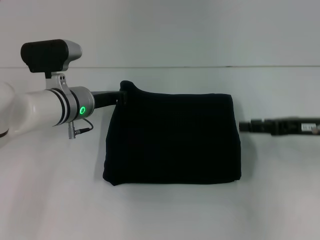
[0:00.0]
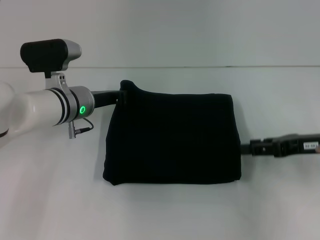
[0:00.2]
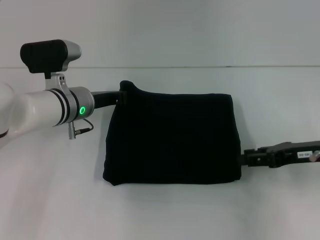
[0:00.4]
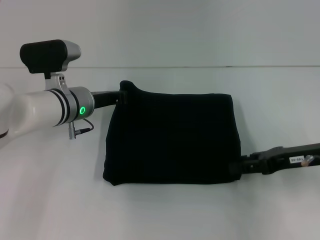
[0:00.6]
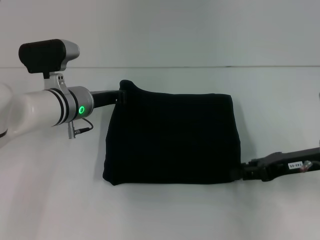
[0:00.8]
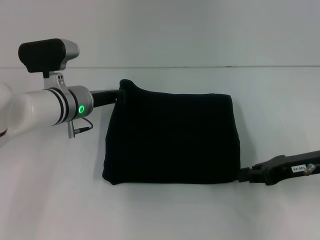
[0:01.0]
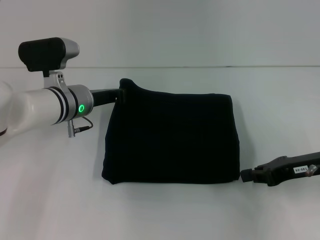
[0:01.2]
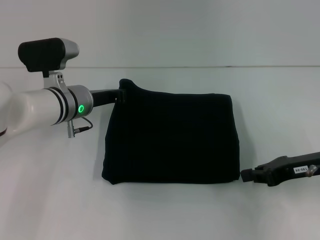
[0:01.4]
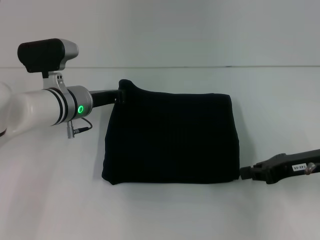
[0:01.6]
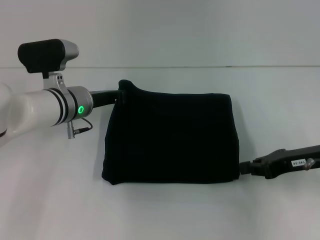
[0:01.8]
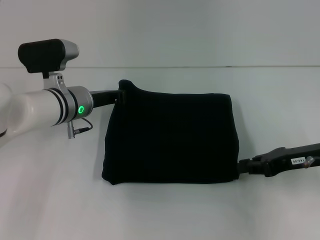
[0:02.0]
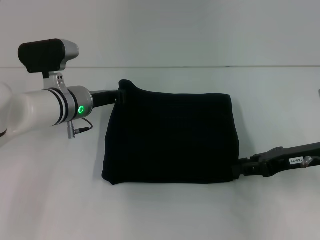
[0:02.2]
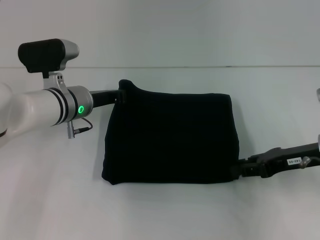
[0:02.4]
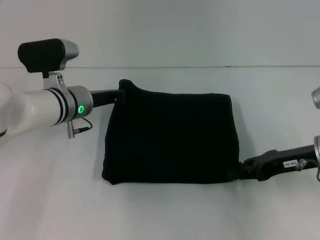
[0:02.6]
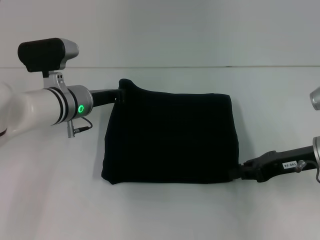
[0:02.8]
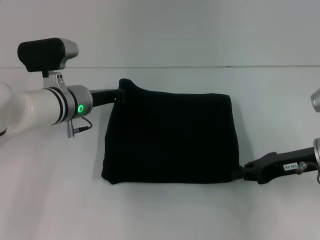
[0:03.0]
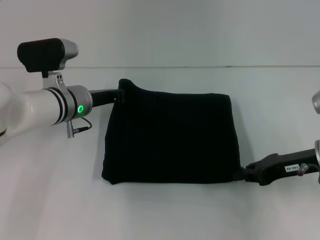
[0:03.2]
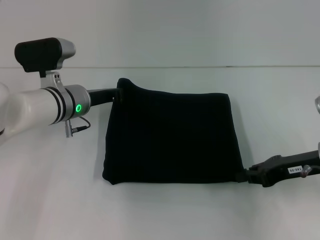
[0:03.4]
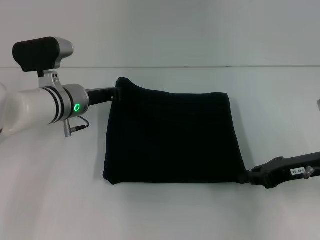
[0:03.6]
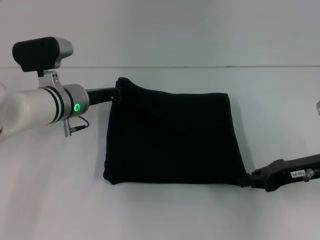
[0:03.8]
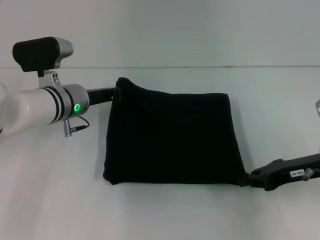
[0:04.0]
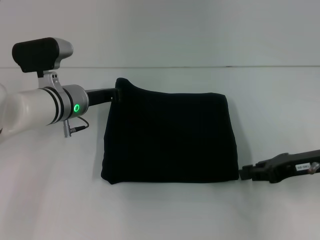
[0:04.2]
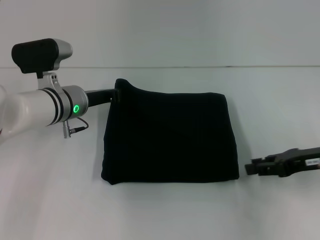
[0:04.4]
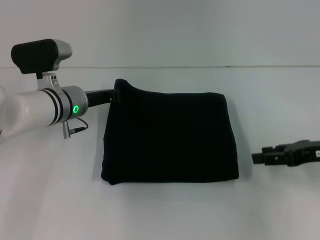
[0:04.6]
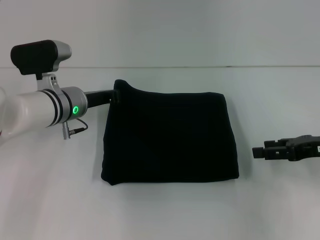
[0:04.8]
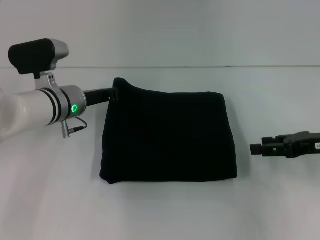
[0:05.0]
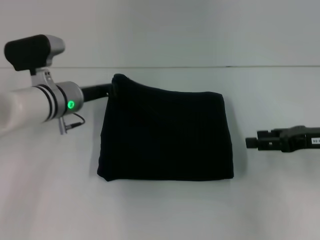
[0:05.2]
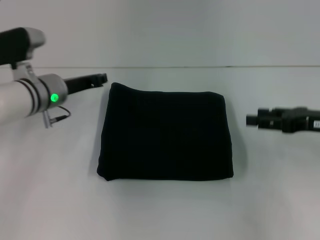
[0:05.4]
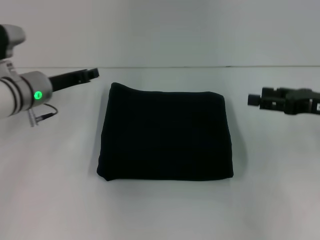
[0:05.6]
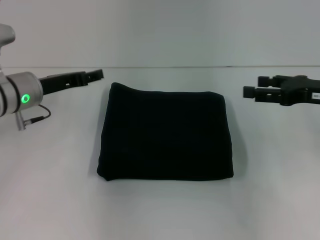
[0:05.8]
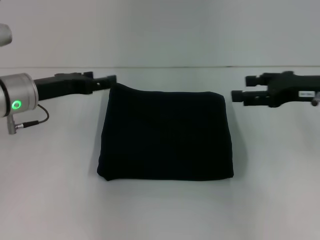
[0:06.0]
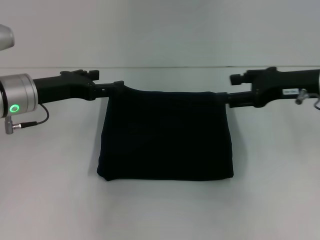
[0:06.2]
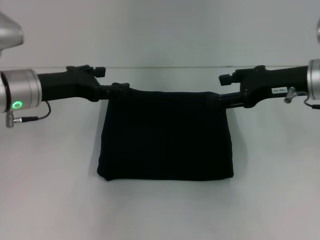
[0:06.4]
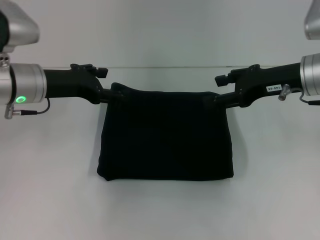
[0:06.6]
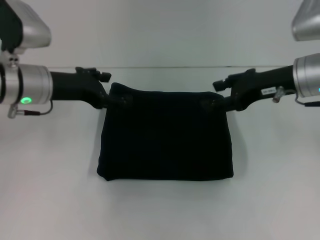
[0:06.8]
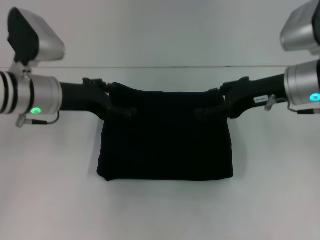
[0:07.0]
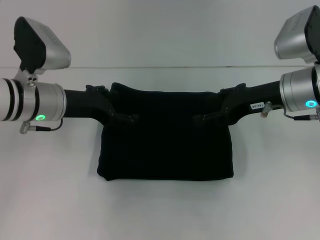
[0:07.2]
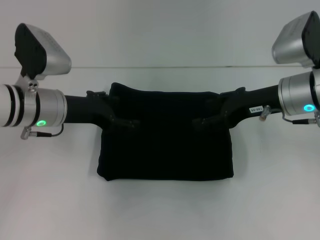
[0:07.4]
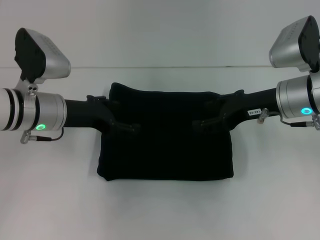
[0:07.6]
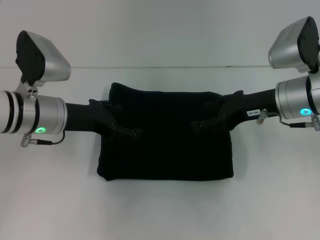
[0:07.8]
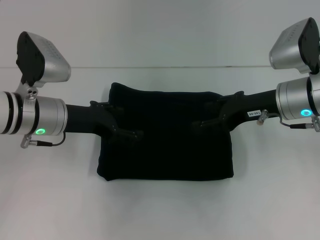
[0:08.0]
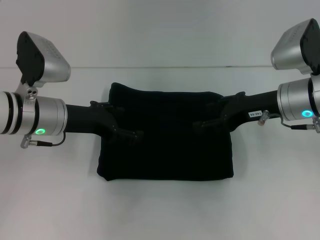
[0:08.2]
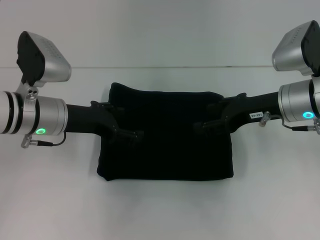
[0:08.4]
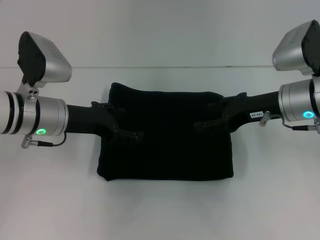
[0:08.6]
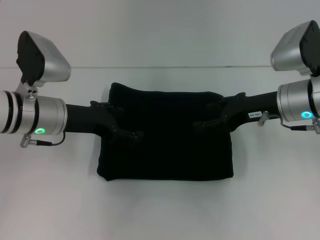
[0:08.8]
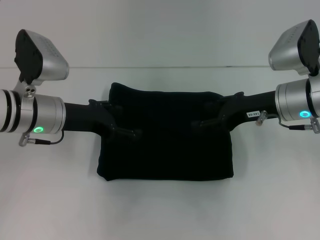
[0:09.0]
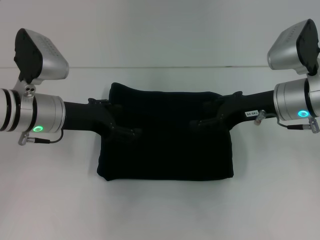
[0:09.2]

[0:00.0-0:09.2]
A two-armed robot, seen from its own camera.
0:00.0 to 0:01.6: The right gripper closes.
0:01.6 to 0:03.0: The grippers make only small movements.
0:03.0 to 0:04.6: The right gripper moves approximately 5 cm.
0:04.6 to 0:06.2: The left gripper travels to the left and upward by approximately 10 cm, and opens; the right gripper moves upward, to the left and forward, some 10 cm, and opens.
0:06.2 to 0:07.6: The right gripper changes place by roughly 5 cm.
0:07.6 to 0:09.2: Neither gripper changes place.

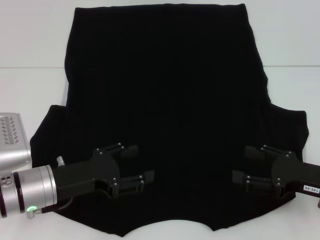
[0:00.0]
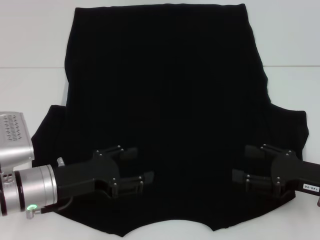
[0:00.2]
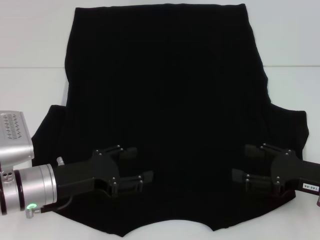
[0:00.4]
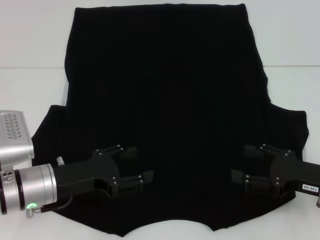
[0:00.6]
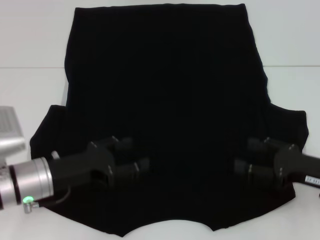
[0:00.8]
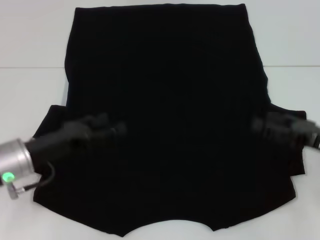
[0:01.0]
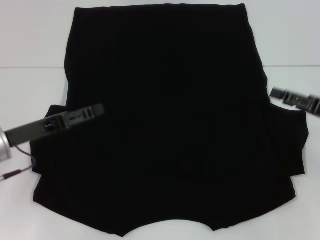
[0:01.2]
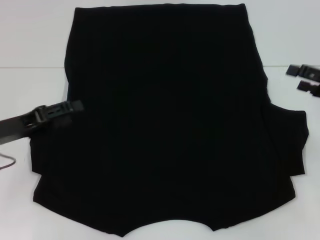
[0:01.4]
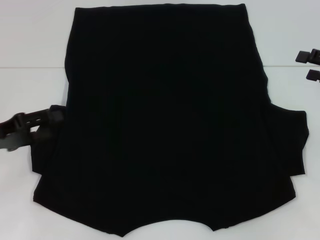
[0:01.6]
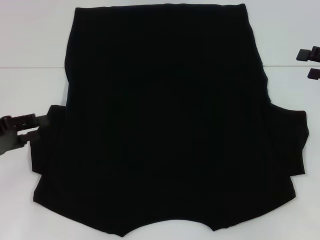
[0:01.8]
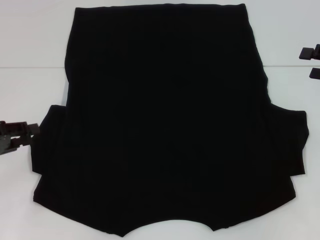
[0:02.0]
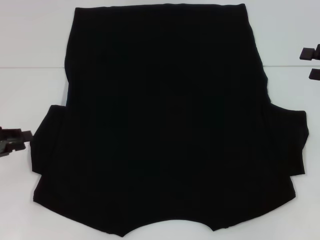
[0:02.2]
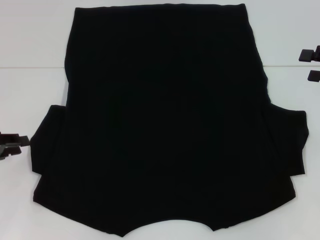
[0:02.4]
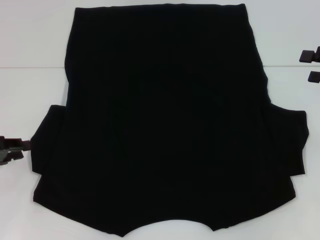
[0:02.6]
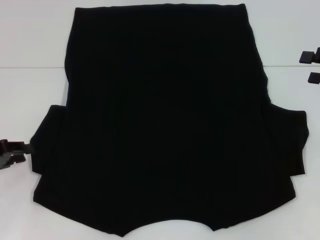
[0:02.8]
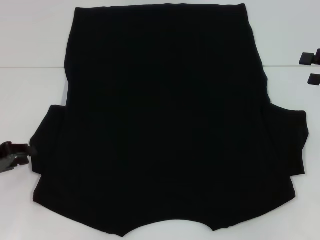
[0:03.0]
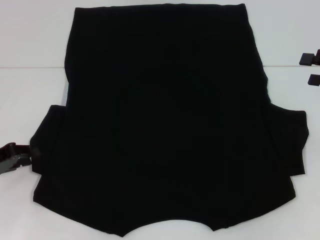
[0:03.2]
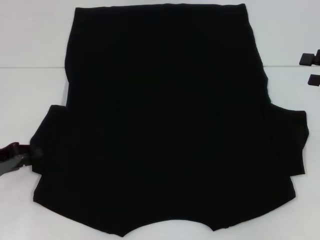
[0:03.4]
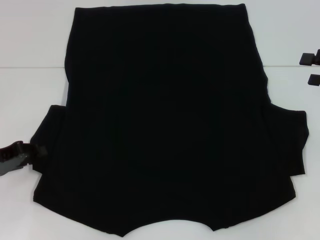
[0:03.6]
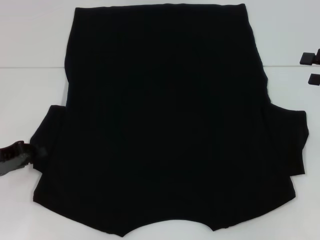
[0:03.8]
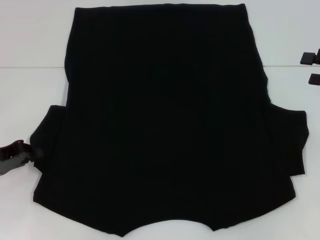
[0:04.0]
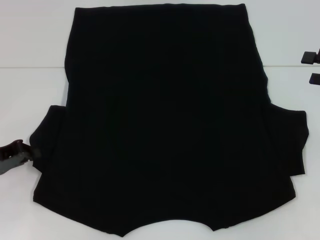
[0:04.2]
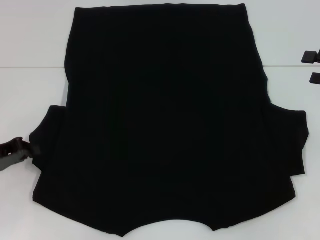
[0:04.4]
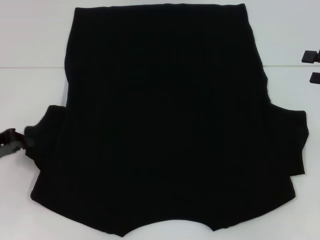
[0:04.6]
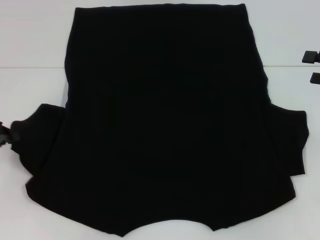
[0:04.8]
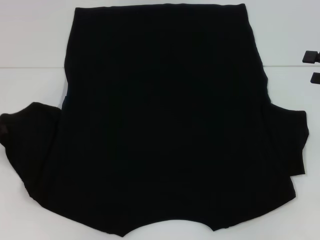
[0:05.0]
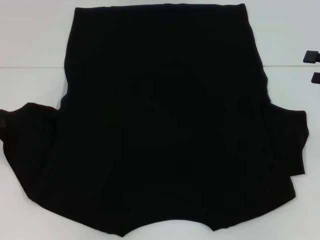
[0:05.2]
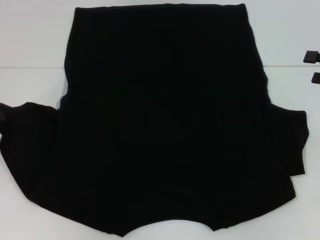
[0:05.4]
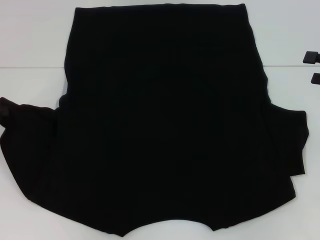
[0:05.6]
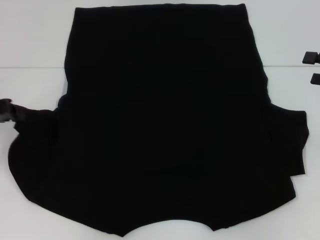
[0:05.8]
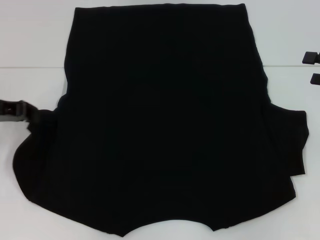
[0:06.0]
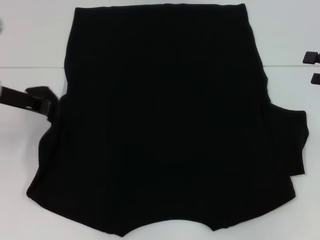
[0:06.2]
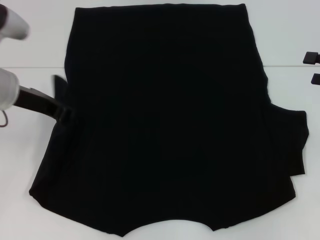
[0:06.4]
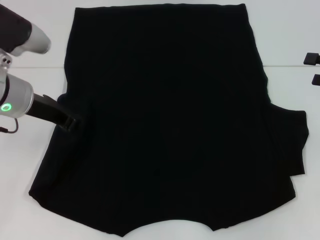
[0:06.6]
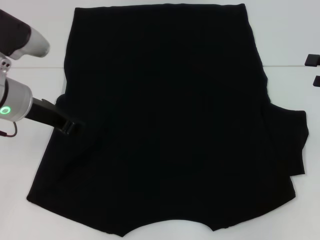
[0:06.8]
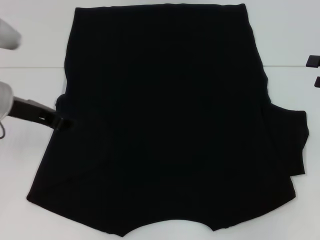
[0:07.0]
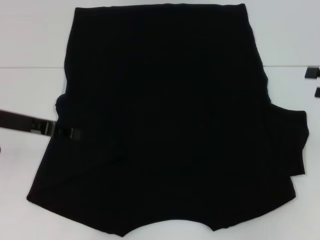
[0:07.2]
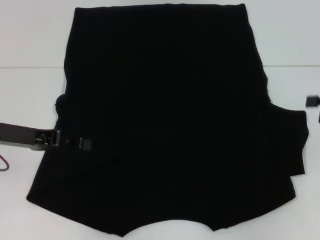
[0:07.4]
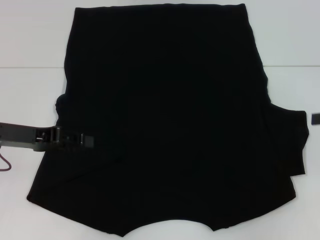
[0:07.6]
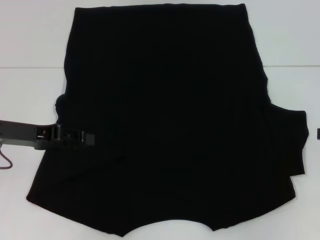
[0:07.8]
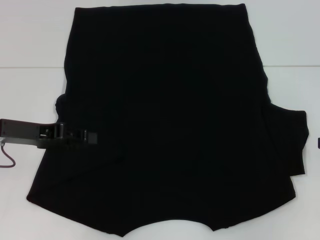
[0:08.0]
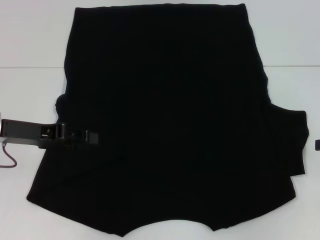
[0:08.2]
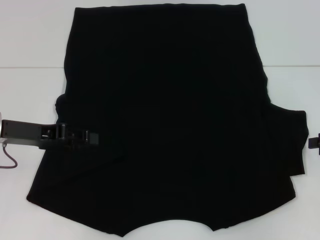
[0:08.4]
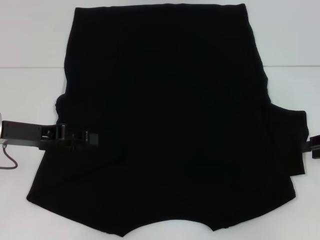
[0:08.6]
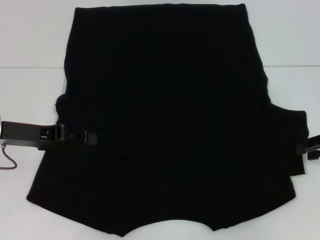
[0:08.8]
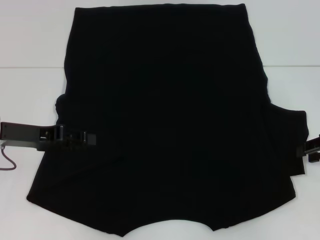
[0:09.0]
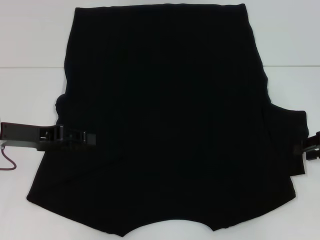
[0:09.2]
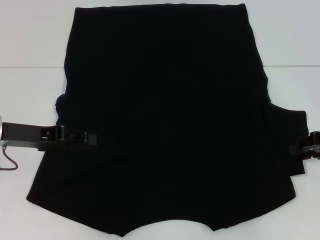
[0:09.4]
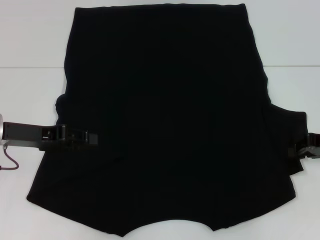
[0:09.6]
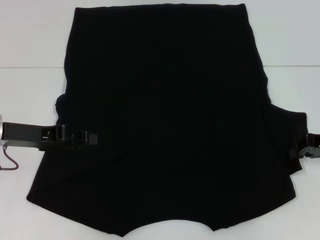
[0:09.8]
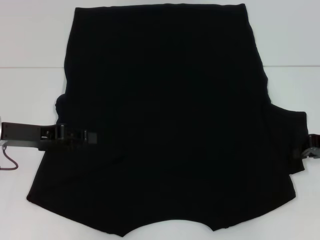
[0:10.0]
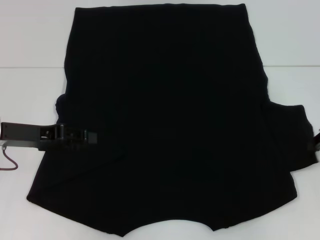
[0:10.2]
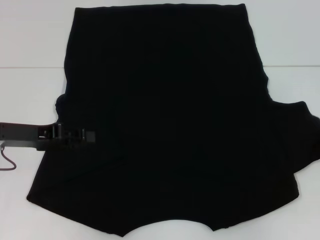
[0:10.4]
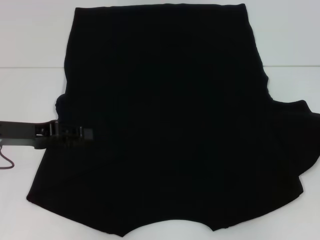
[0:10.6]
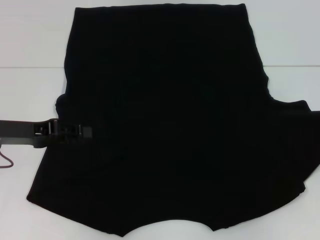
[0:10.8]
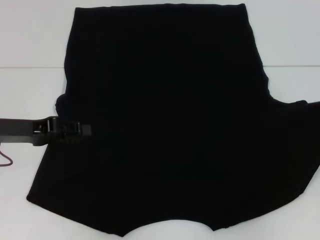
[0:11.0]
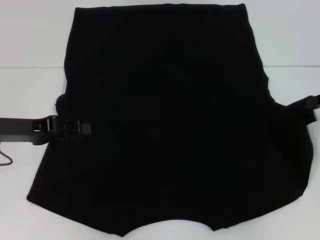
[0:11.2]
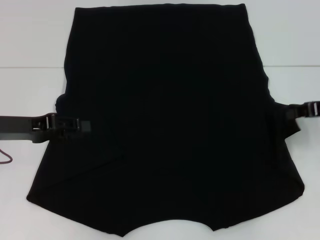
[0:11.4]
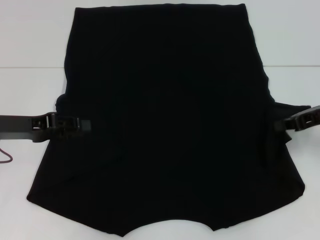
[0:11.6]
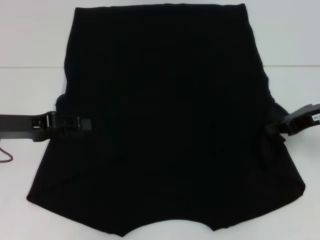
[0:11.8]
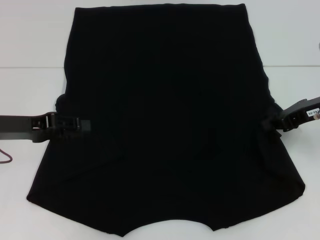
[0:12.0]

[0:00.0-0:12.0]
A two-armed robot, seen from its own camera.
Step, 0:00.0 to 0:07.2: Fold the bottom left sleeve with your left hand.
0:00.0 to 0:01.6: The left gripper goes some 15 cm to the left and upward; the right gripper shifts about 15 cm forward, upward and to the right.
0:01.6 to 0:03.0: The left gripper closes.
0:03.0 to 0:04.4: The left gripper closes its fingers.
0:04.4 to 0:06.0: The left gripper travels upward and forward by about 10 cm.
0:06.0 to 0:07.6: The left gripper moves about 10 cm to the right and comes back.
0:07.6 to 0:09.0: The right gripper shifts by about 5 cm, and closes.
0:09.0 to 0:10.4: The right gripper closes up.
0:10.4 to 0:12.0: The right gripper travels to the left by roughly 10 cm.

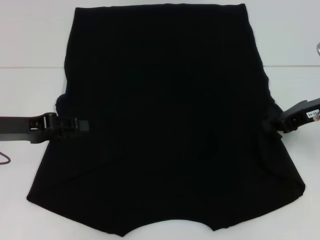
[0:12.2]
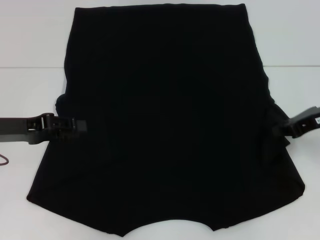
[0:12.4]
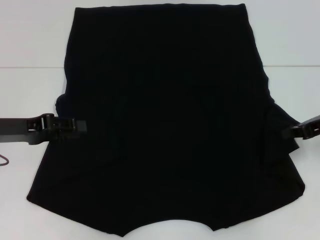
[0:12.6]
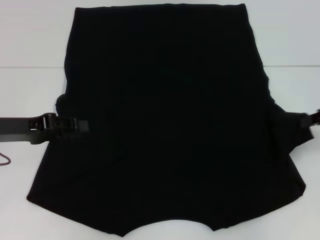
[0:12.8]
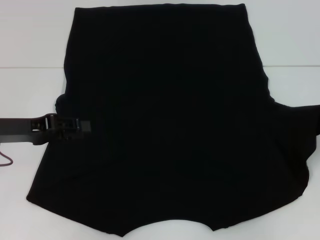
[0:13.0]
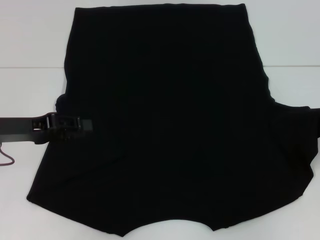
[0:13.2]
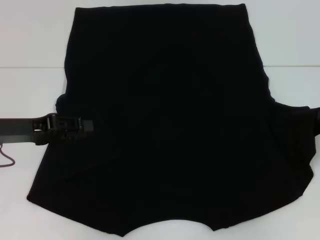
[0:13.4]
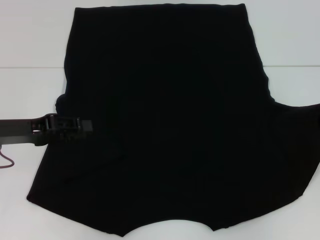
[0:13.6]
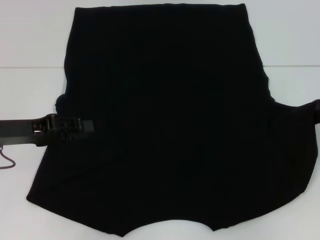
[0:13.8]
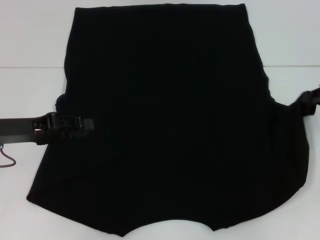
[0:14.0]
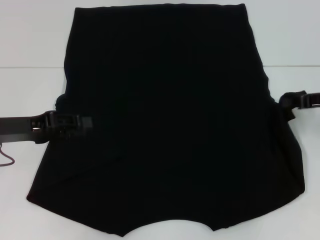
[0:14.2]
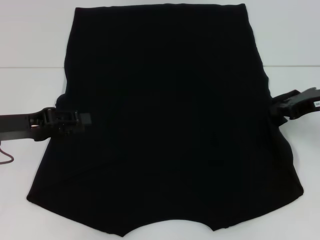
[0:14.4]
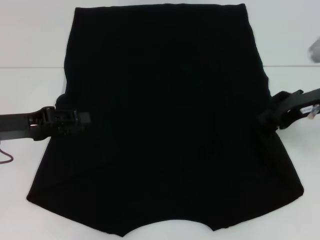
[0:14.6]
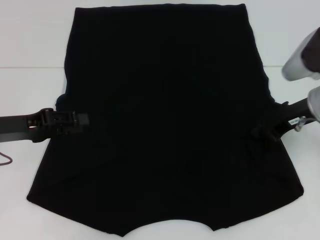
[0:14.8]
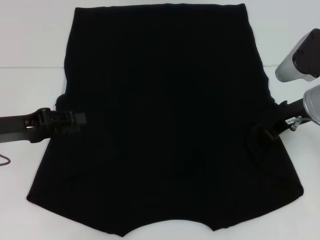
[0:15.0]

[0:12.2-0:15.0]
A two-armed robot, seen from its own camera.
0:12.2 to 0:13.6: The right gripper goes roughly 10 cm to the right.
0:13.6 to 0:15.0: The right gripper is displaced to the left by roughly 15 cm.
